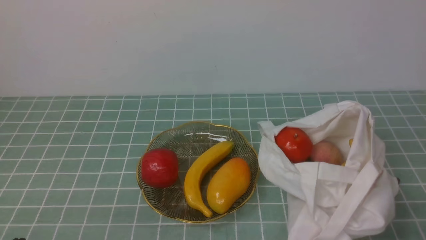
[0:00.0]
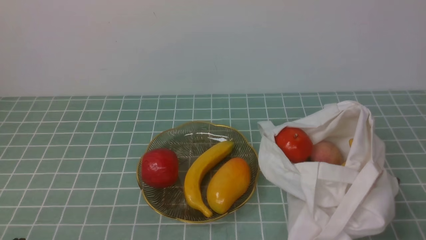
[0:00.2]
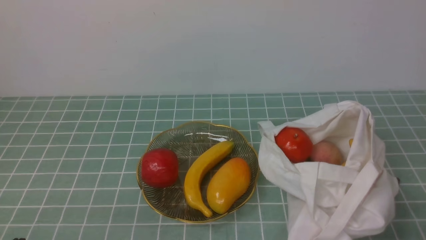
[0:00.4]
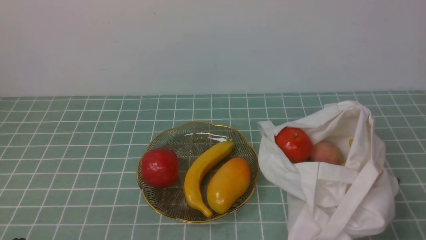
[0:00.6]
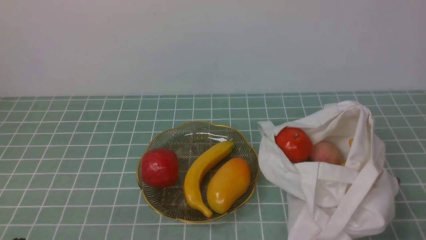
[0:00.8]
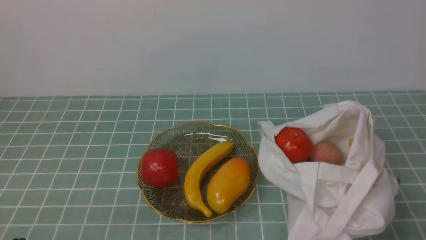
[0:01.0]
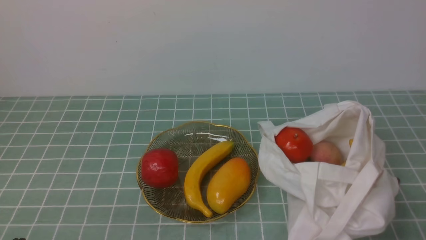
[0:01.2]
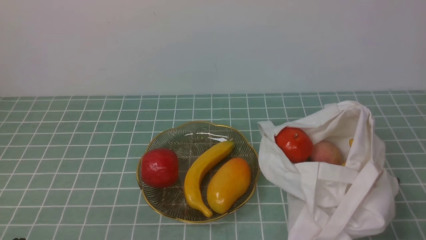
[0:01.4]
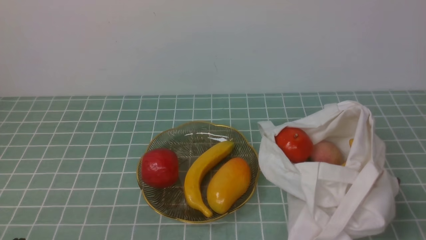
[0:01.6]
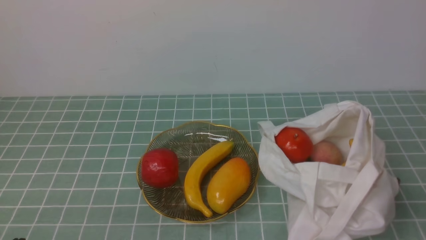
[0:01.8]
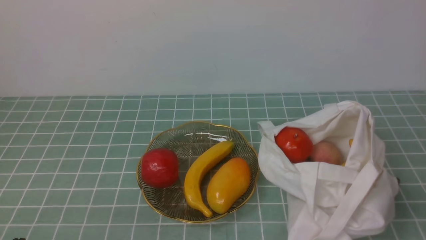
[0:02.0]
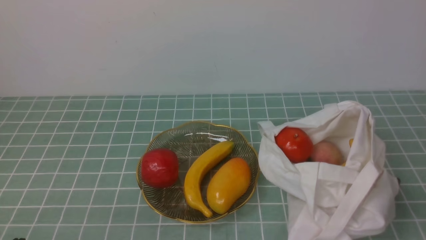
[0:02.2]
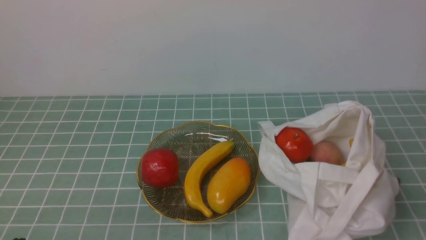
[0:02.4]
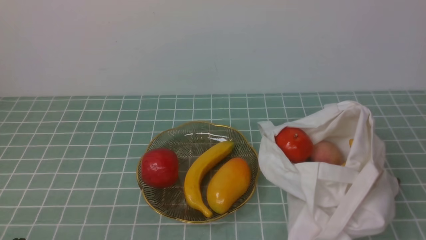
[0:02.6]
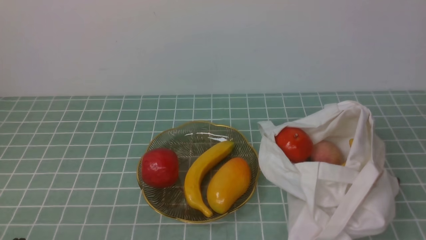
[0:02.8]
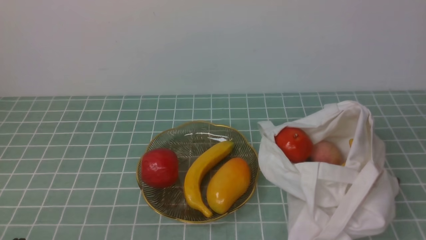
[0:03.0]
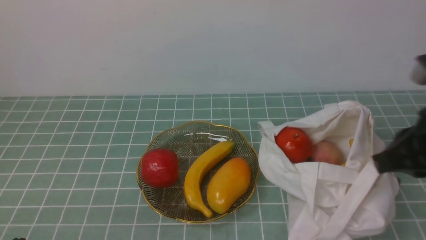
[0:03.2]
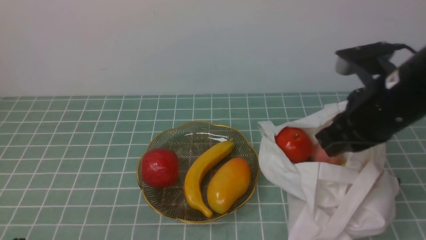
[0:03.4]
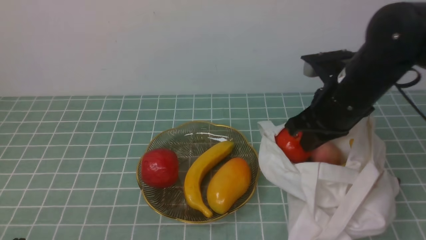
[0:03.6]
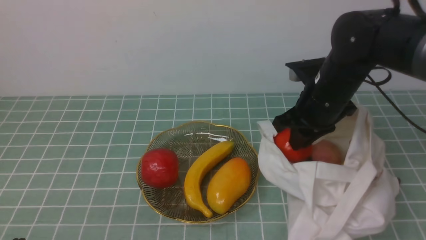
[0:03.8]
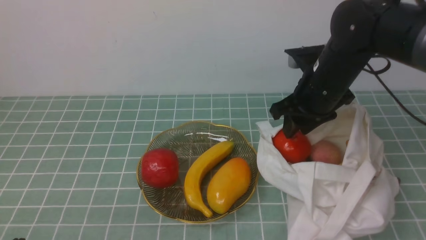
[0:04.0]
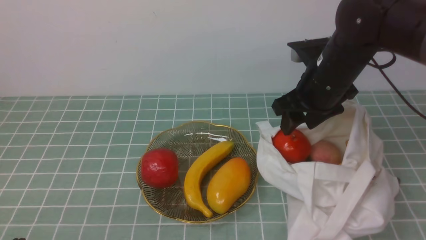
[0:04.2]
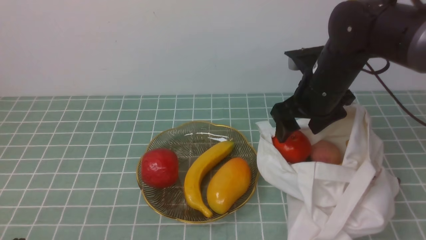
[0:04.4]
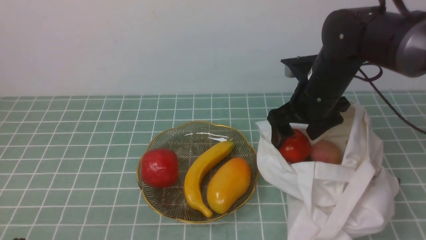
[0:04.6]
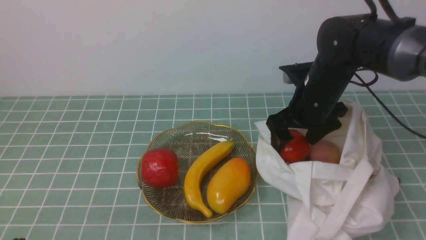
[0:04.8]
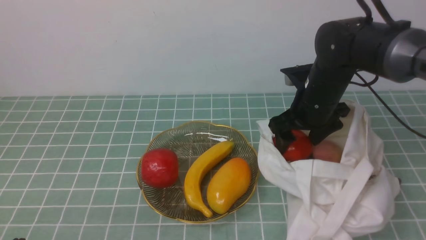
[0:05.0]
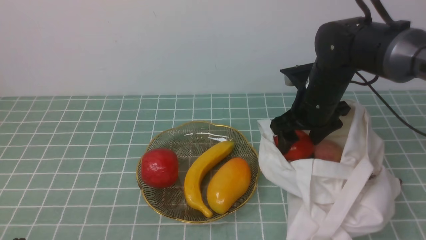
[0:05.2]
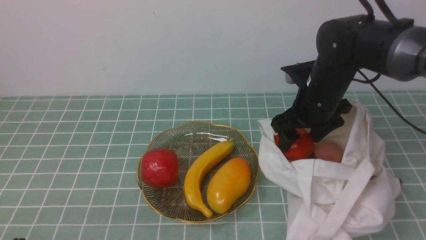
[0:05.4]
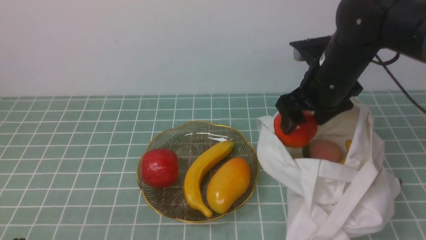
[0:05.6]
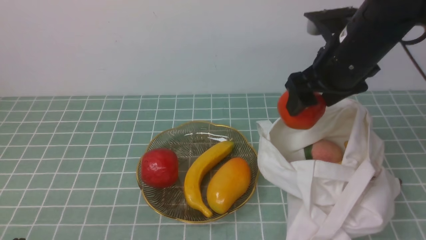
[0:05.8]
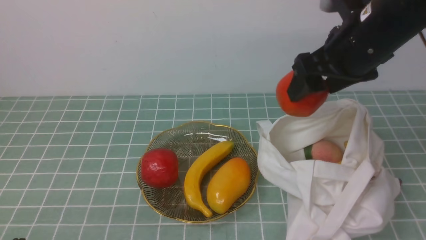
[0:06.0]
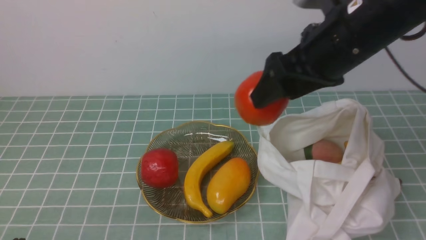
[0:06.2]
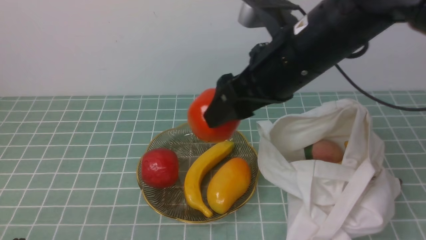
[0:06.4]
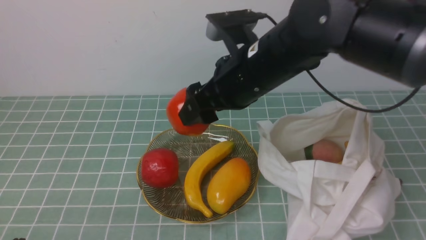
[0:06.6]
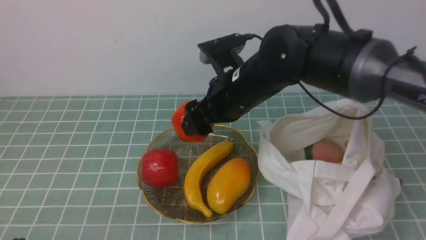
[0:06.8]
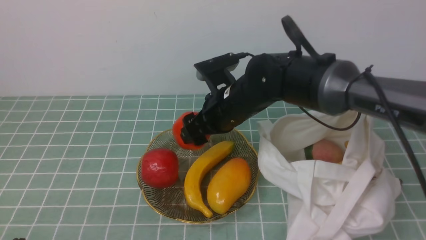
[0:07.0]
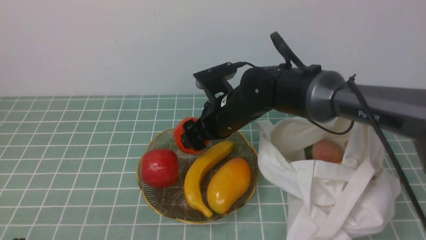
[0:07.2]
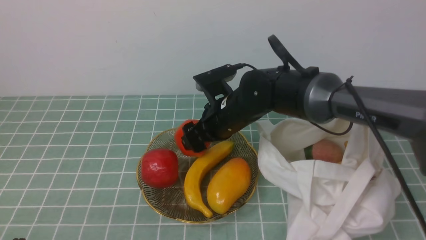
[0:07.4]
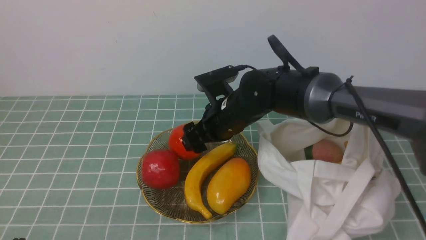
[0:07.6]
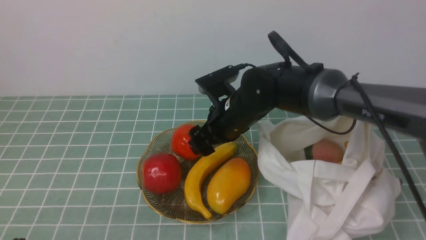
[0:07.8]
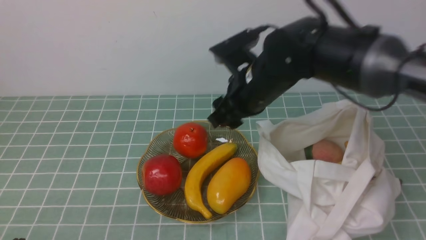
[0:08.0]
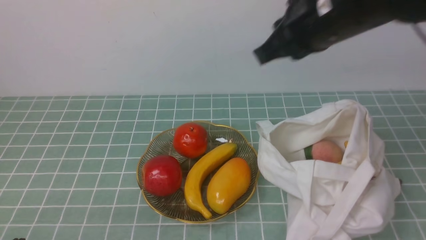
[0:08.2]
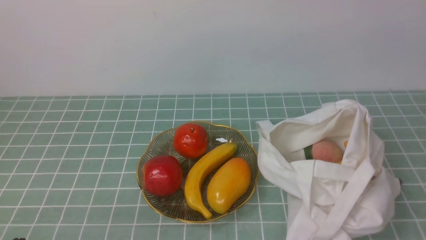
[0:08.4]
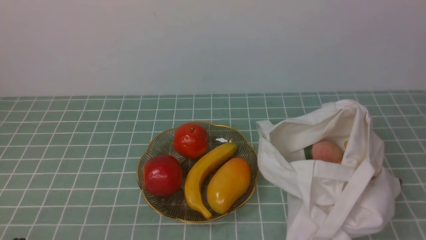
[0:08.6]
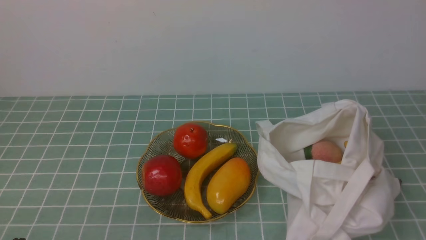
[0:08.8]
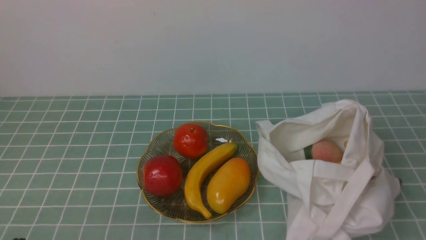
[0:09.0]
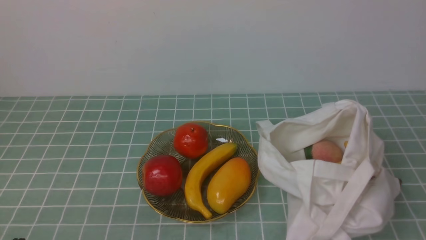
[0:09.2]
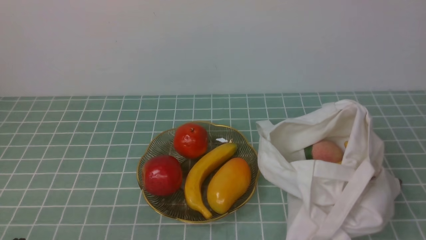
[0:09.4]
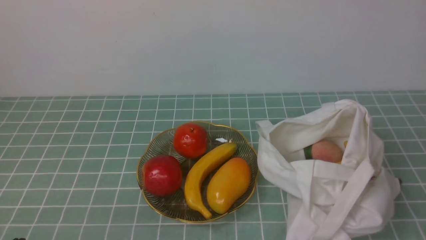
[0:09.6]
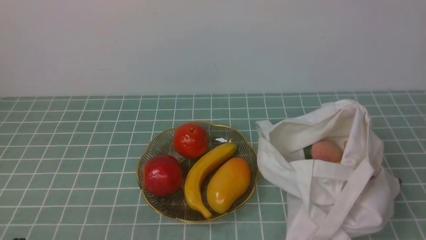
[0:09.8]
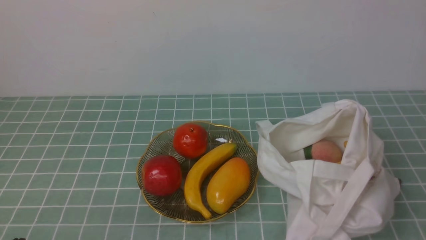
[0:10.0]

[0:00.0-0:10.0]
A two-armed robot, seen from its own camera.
Step, 0:00.0 to 0:05.6: use the right arm to grab an apple from the bag.
Step, 0:05.8 to 0:07.8: use the right arm to put the apple into the empty plate on the left.
0:02.8 to 0:04.2: The right gripper shifts approximately 35 cm forward and to the left, and opens.
0:04.2 to 0:05.8: The grippers move only a little.
0:05.8 to 0:07.2: The right gripper is displaced to the left and downward by about 15 cm.
0:07.2 to 0:08.6: The right gripper heads upward, backward and to the right, covering about 40 cm, and closes.

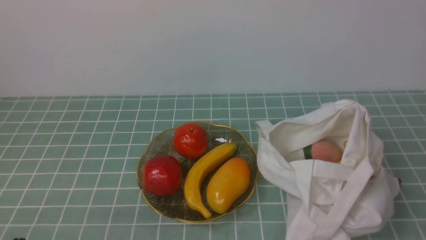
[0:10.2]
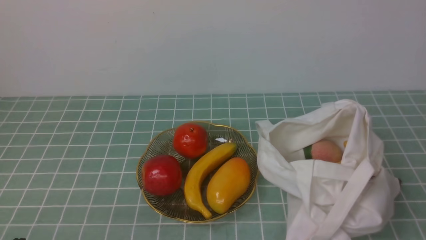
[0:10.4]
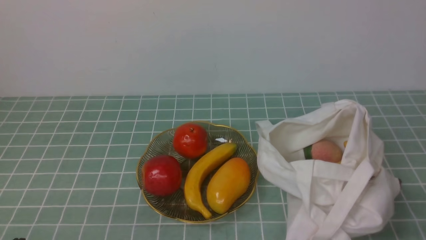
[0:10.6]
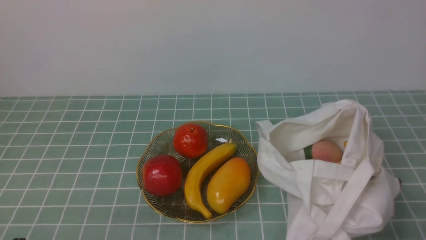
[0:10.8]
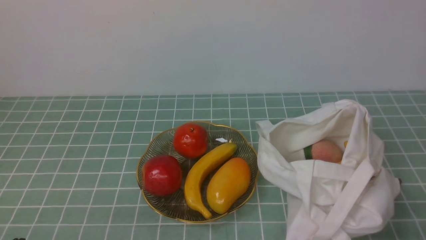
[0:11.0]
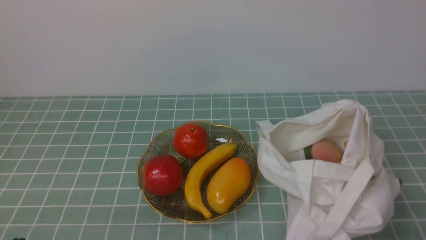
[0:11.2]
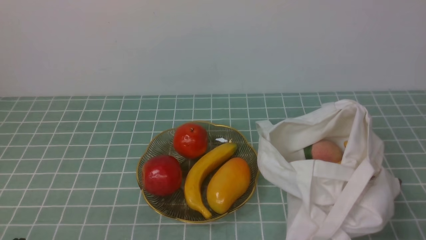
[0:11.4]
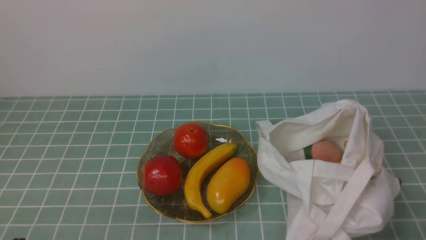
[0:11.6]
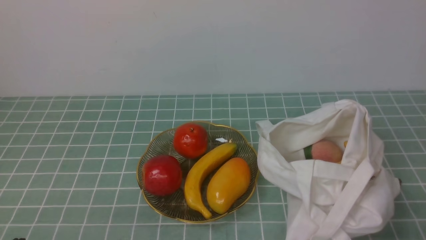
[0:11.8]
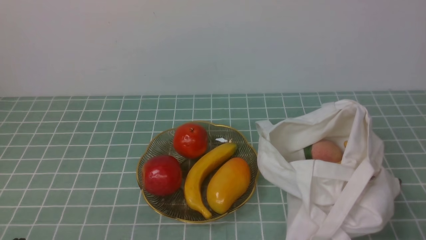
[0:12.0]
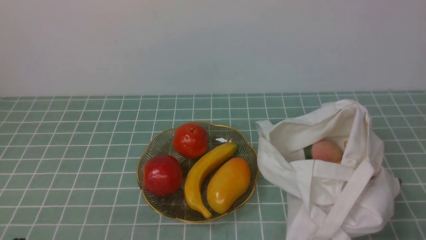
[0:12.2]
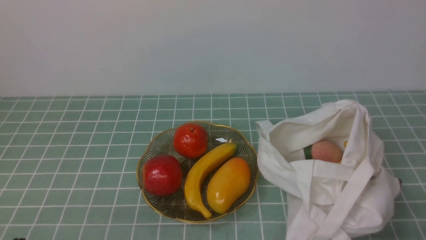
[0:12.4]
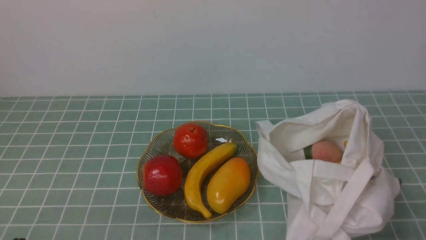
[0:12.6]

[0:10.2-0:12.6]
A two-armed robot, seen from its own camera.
0:11.4 to 0:12.6: Neither gripper changes place.
